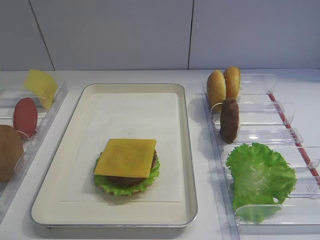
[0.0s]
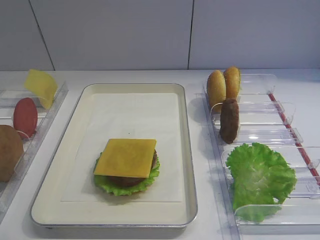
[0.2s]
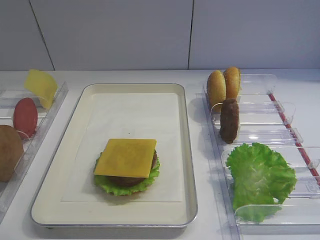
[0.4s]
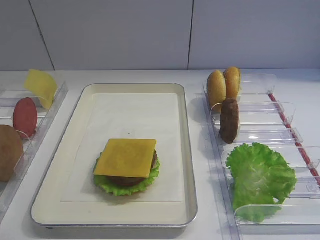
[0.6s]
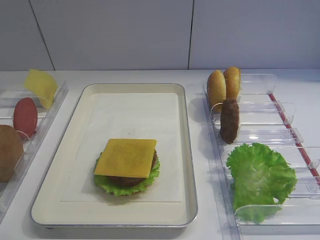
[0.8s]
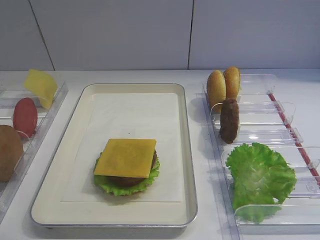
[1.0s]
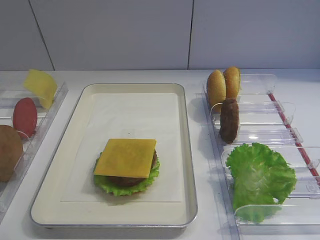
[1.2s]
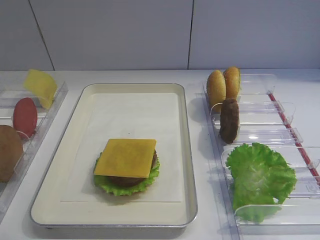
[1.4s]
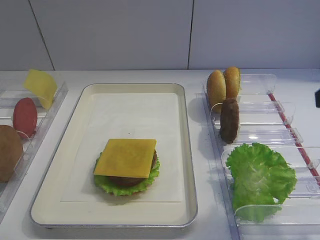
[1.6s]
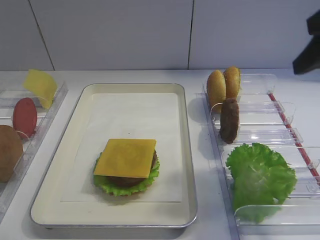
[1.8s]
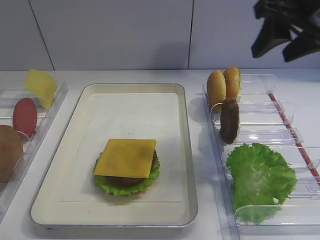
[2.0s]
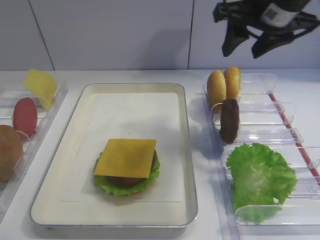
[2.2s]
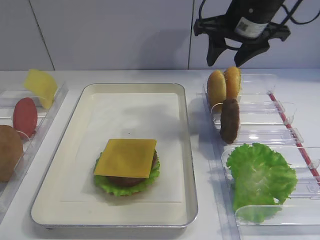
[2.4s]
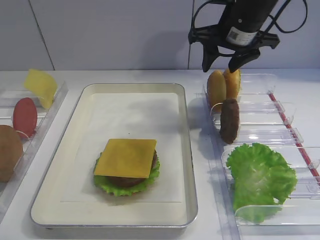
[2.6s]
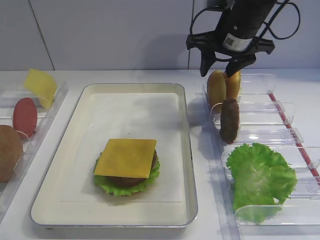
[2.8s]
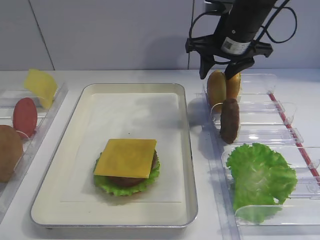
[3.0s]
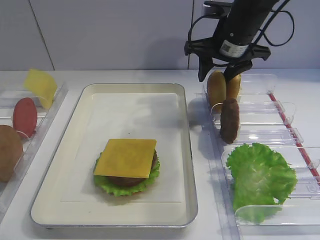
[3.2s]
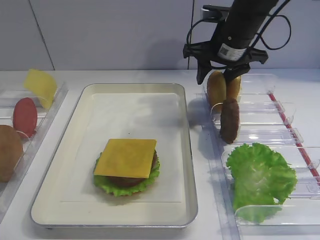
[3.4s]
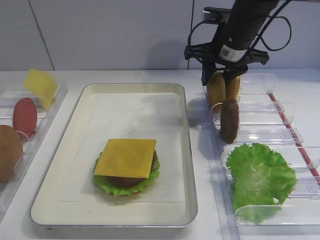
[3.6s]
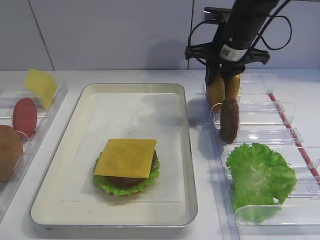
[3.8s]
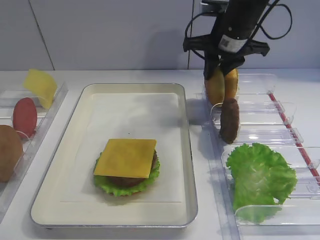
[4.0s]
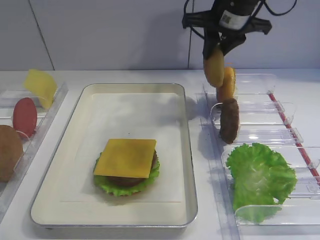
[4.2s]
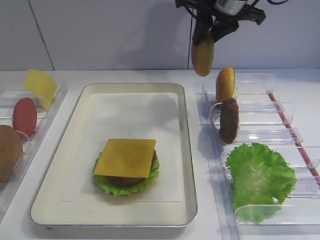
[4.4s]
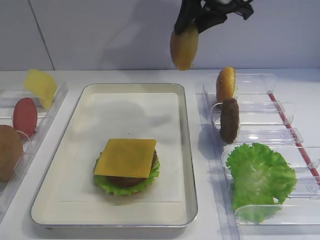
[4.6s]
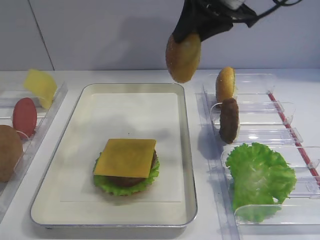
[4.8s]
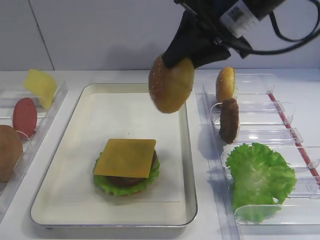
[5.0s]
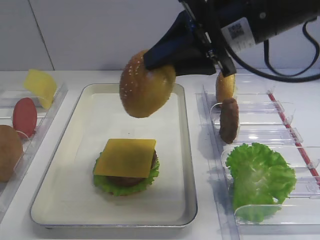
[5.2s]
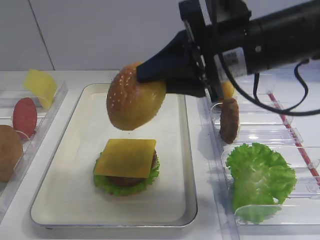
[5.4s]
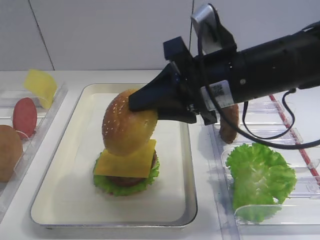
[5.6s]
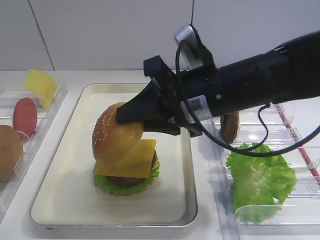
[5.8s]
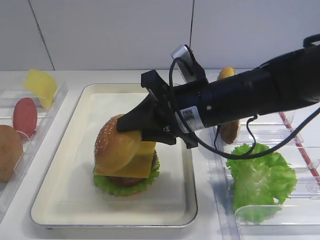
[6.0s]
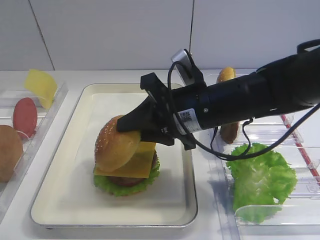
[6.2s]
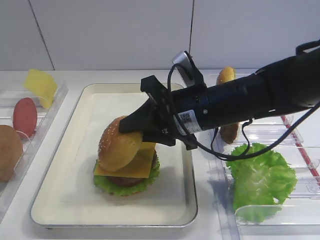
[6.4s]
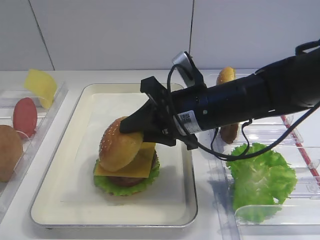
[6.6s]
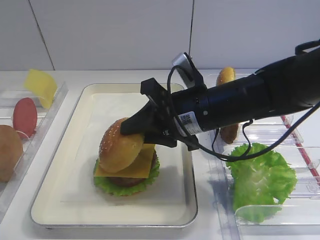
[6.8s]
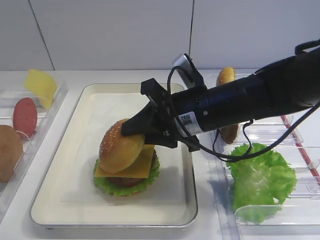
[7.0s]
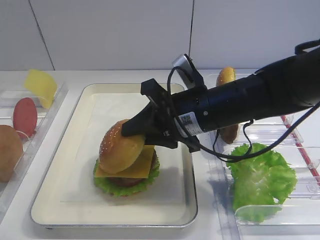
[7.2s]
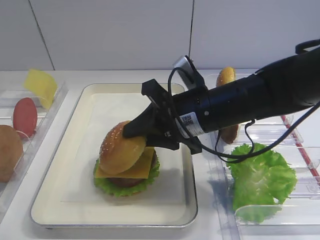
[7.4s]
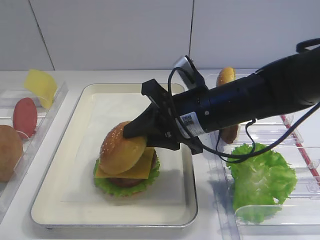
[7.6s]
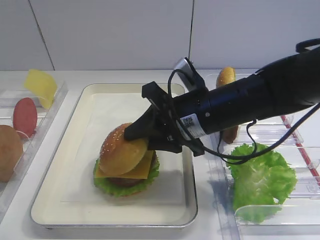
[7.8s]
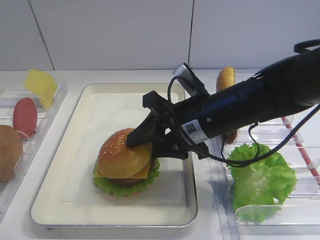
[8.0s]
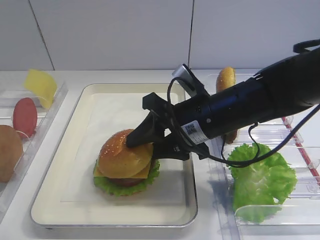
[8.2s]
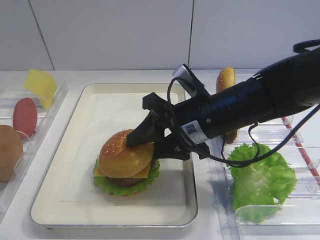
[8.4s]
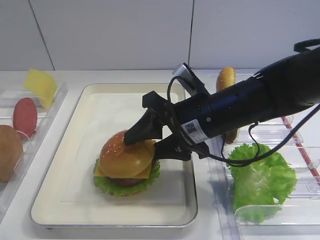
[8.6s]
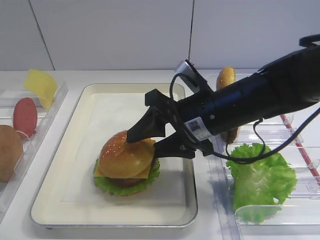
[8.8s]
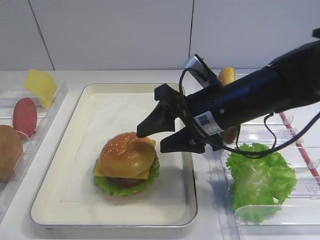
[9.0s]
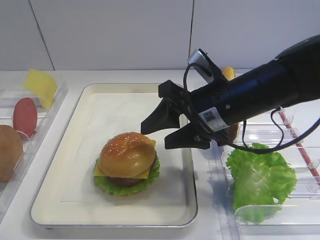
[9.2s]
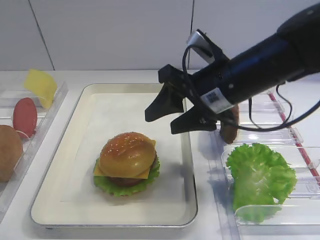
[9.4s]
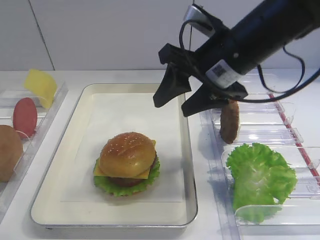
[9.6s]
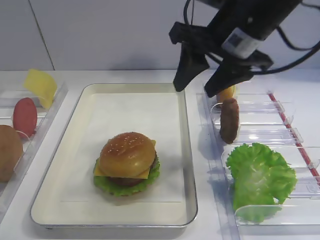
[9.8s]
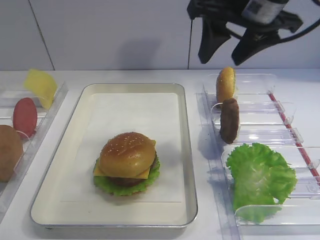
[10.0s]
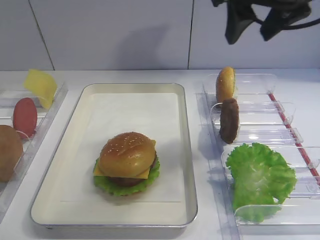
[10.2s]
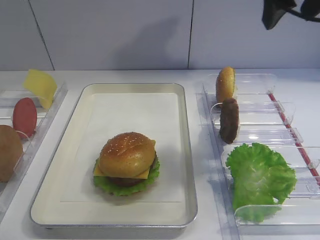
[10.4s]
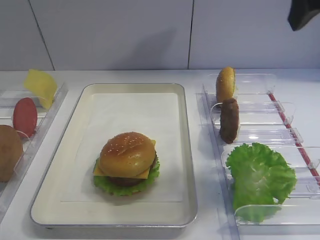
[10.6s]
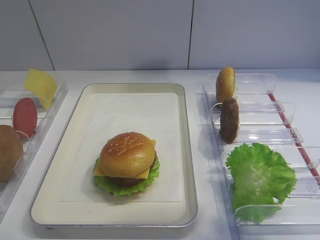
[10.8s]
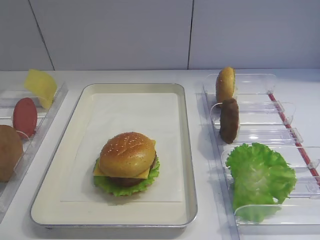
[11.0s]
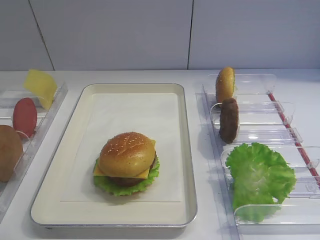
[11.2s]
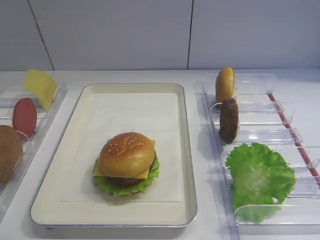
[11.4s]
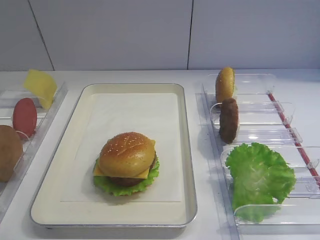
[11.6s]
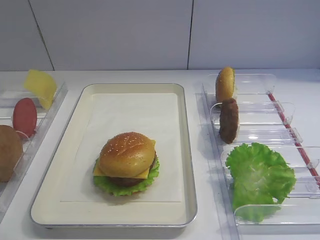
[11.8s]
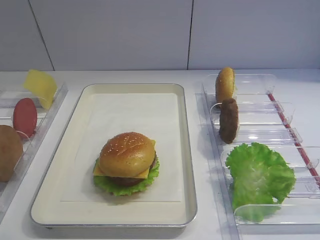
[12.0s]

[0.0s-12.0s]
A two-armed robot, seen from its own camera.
Step, 0.0s to 4.2s: Pick up the hamburger lid with the right gripper.
Step, 4.4s to 9.4s: Place the hamburger lid on the cheese slice with the right gripper.
1.6s to 3.0s: The right gripper travels forward and to the left by some 30 cm.
3.0s to 4.4s: The right gripper is displaced upward by some 5 cm, and closes its fingers.
4.4s to 6.0s: The right gripper travels backward and downward by about 20 cm.
6.0s to 7.6s: The grippers move only a little.
7.6s to 9.0s: The right gripper opens its fingers.
9.0s to 10.4s: The right gripper travels upward and to the right by about 20 cm.
10.4s to 12.0s: The right gripper moves backward, about 30 cm.

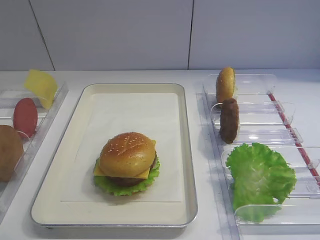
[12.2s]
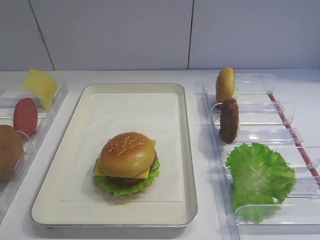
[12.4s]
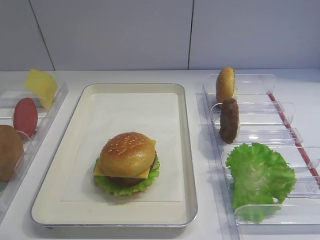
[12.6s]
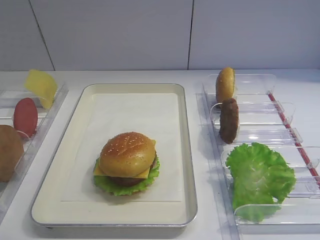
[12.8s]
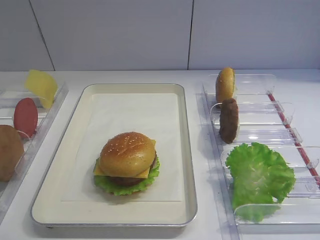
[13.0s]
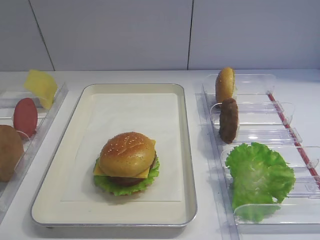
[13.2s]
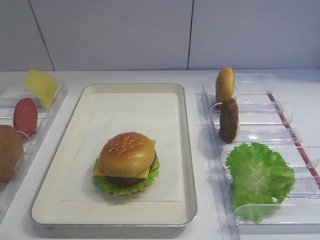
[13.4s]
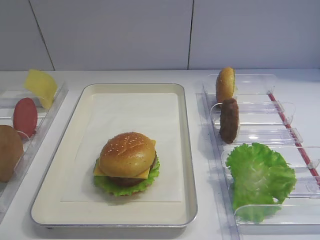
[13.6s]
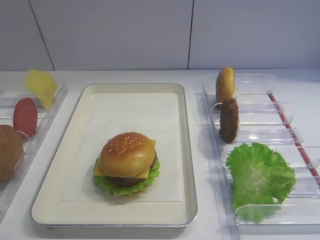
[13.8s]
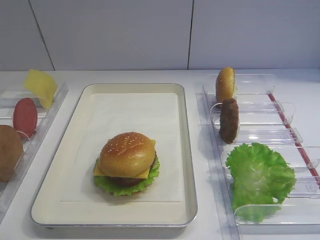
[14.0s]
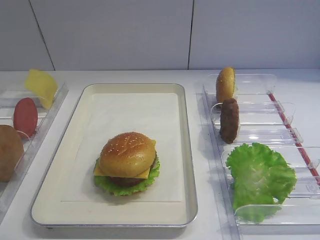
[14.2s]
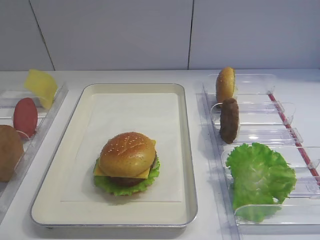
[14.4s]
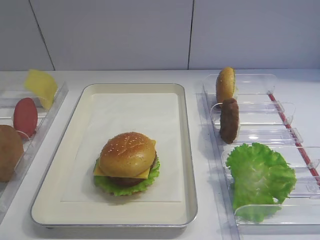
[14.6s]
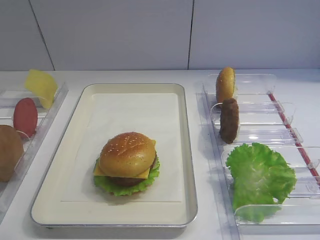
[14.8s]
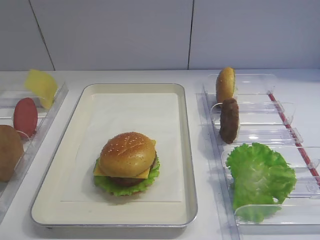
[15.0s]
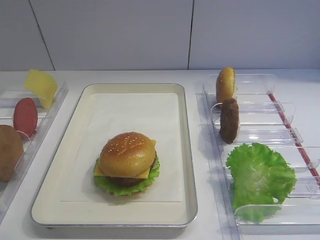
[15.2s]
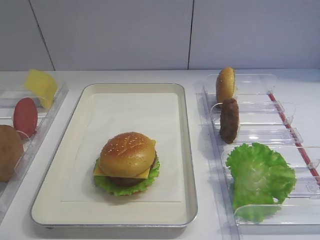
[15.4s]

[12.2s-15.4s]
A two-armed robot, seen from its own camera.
13.8s to 15.4s: Both grippers stay about where they are.

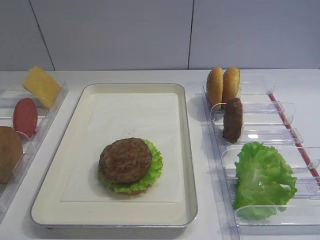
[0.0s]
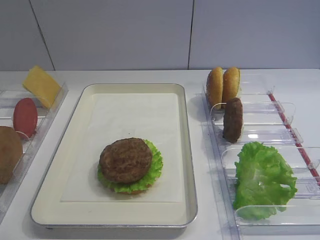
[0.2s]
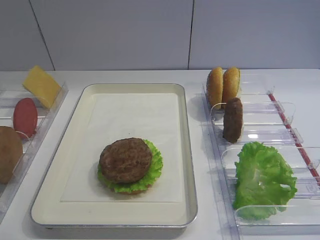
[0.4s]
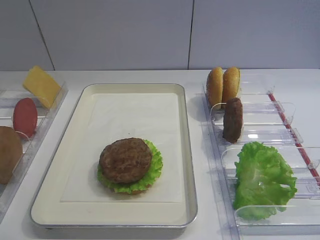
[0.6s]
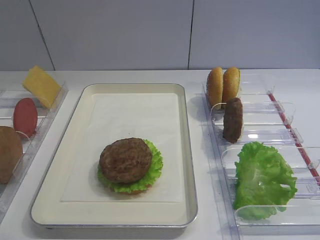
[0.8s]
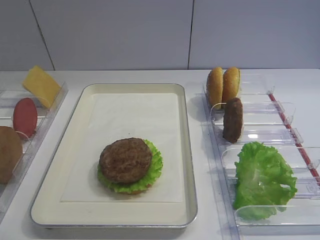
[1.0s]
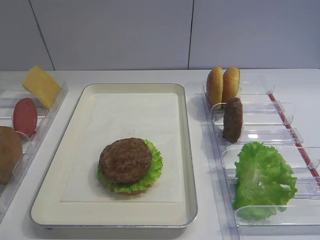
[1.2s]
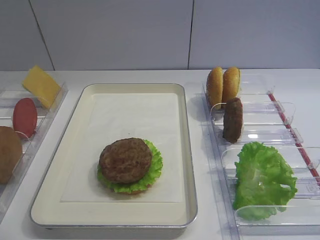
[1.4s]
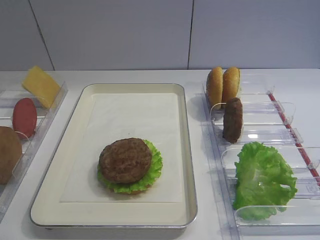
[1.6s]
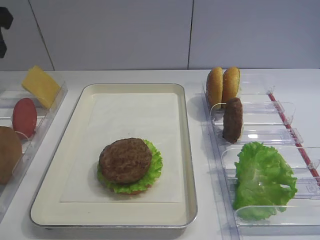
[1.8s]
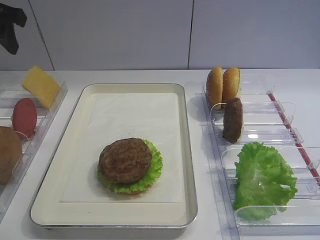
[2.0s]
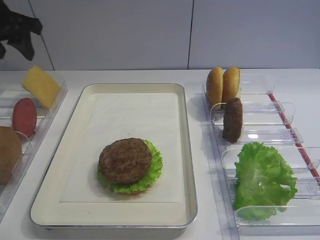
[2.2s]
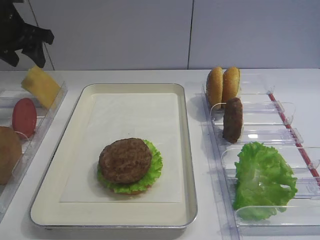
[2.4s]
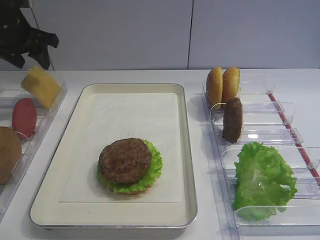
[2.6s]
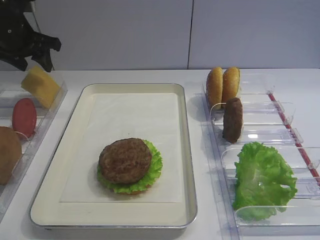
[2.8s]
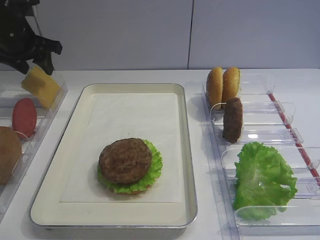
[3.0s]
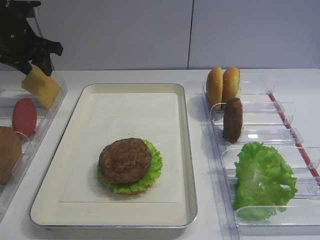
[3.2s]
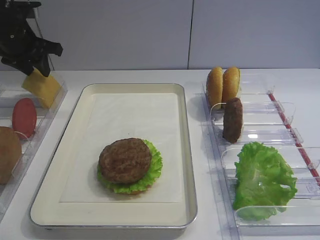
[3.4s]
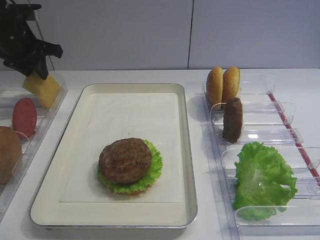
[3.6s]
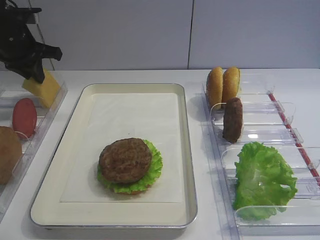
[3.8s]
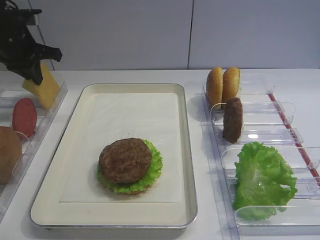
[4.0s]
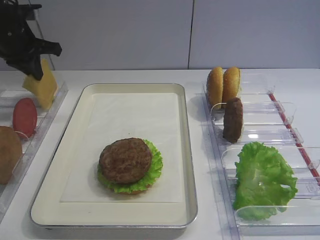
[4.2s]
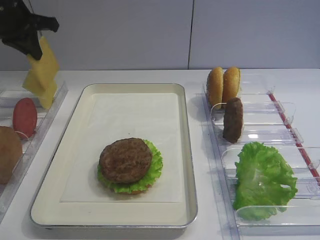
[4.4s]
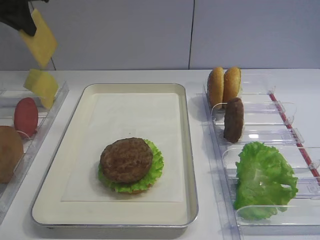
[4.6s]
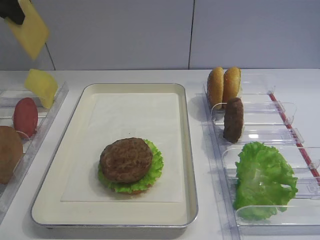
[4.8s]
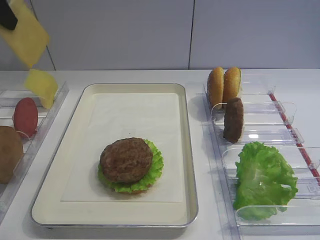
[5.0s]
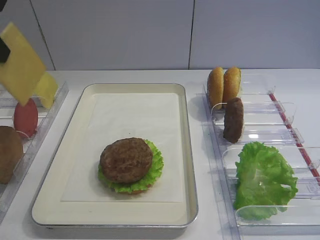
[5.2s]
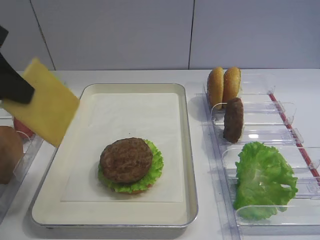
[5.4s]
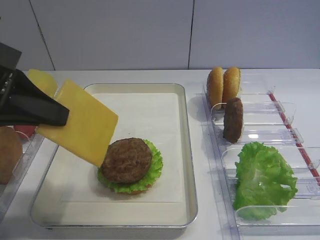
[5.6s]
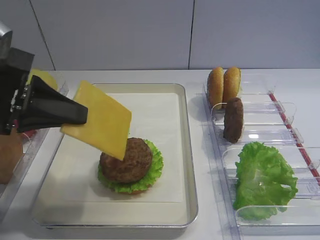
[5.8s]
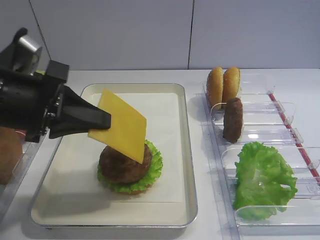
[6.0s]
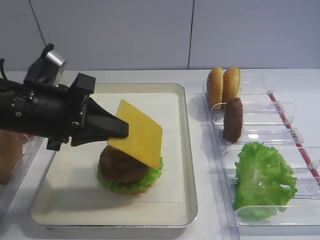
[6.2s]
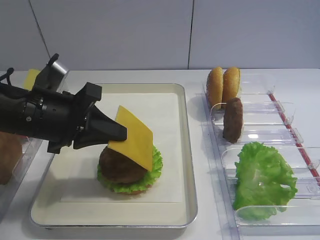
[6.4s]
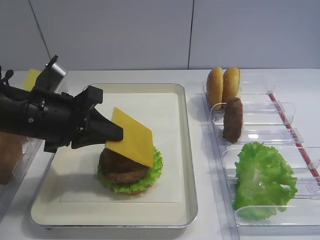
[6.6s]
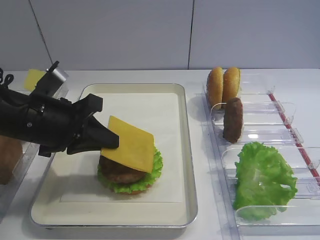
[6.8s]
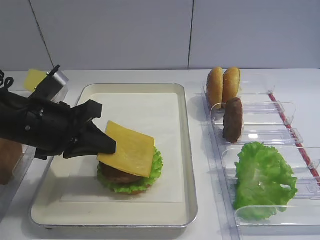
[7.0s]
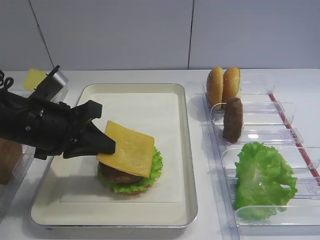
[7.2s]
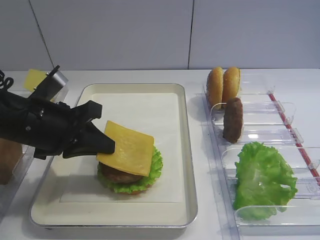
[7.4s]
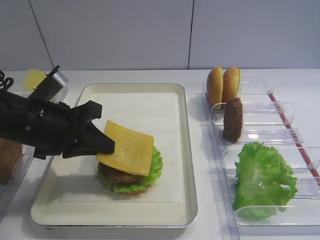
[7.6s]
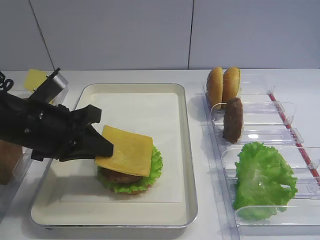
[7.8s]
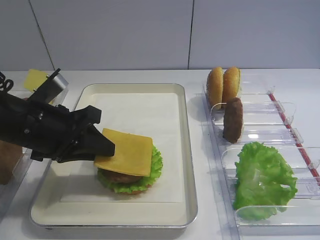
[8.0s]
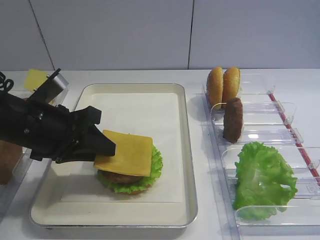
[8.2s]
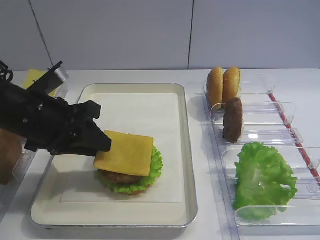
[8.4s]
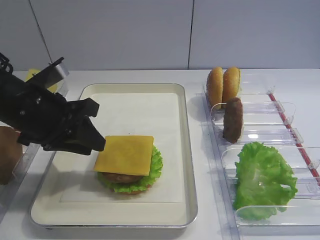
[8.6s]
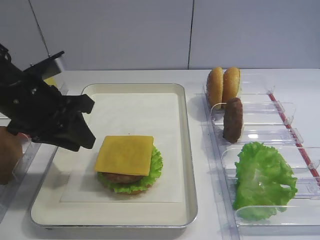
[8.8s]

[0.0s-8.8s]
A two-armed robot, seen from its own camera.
Step, 0.0s to 4.2s: Pick up the cheese slice with the left gripper.
Step, 4.4s to 8.6s: Place the cheese slice on the cutlet with the left gripper.
1.4s to 3.0s: The left gripper moves forward, roughly 30 cm.
3.0s to 4.4s: The left gripper closes up.
4.4s to 5.8s: The left gripper heads backward, covering about 25 cm.
5.8s to 7.4s: The left gripper shifts about 10 cm downward.
7.4s to 8.8s: The left gripper opens up.
